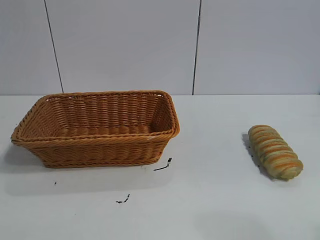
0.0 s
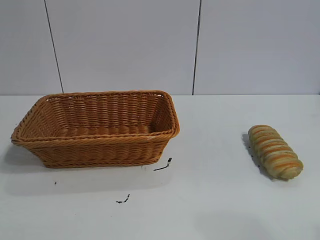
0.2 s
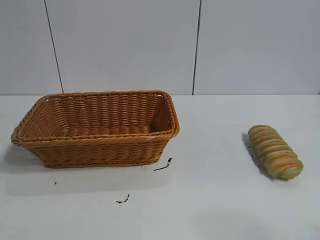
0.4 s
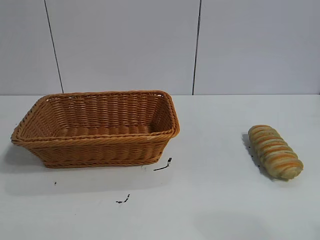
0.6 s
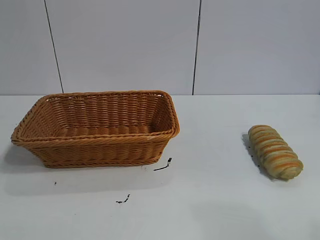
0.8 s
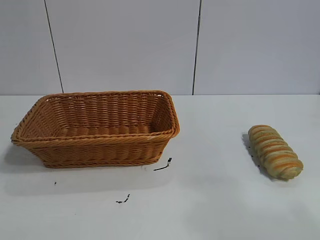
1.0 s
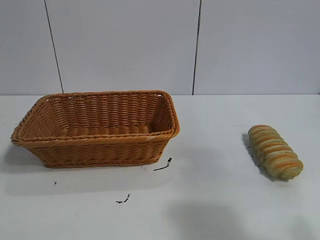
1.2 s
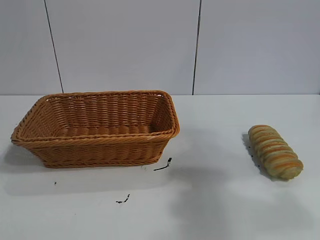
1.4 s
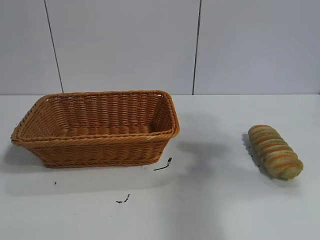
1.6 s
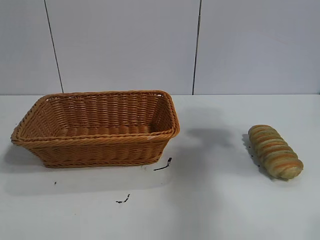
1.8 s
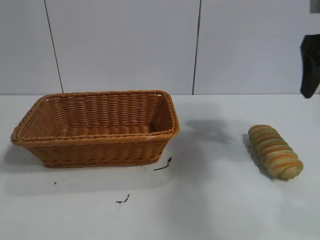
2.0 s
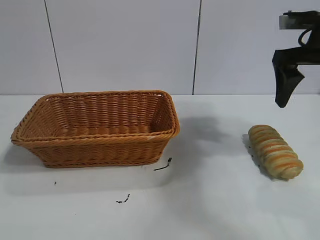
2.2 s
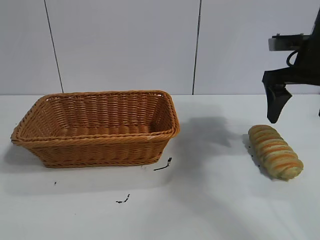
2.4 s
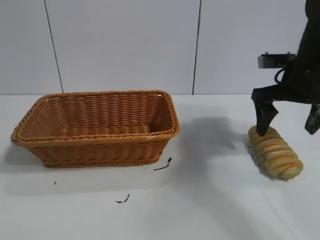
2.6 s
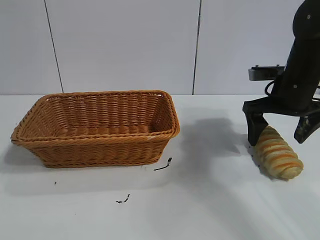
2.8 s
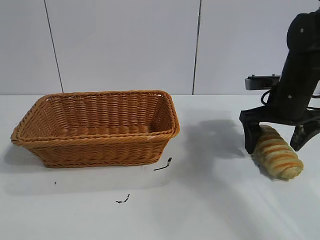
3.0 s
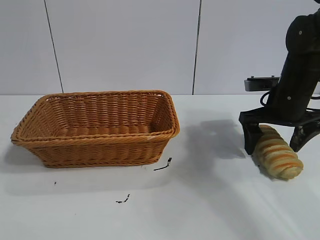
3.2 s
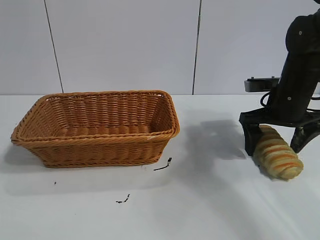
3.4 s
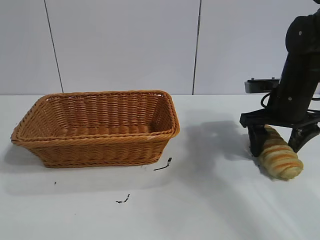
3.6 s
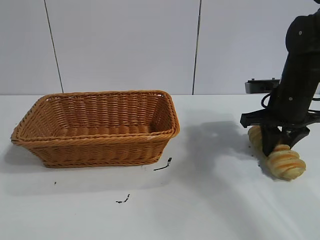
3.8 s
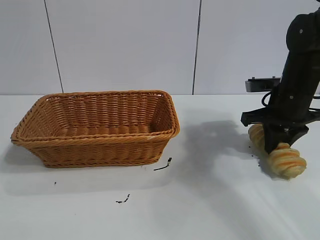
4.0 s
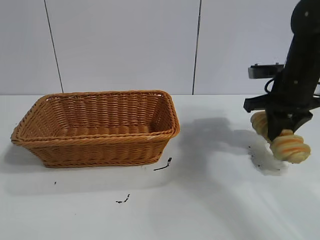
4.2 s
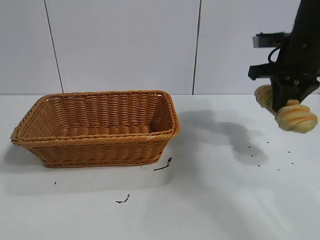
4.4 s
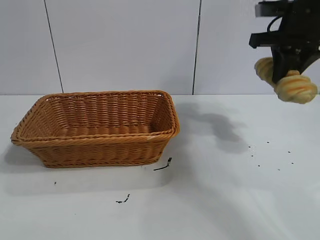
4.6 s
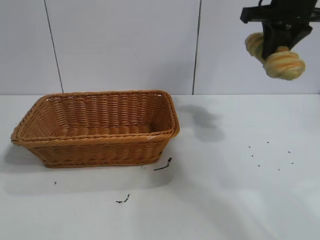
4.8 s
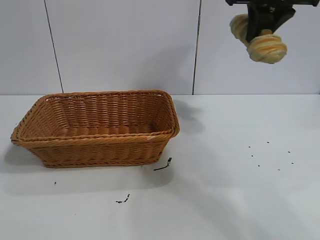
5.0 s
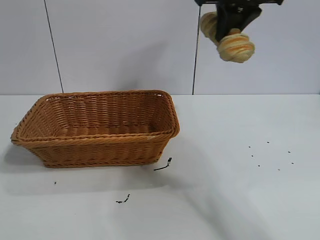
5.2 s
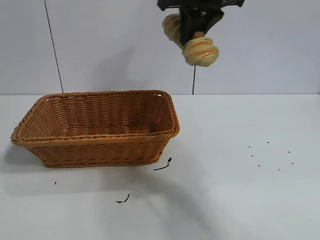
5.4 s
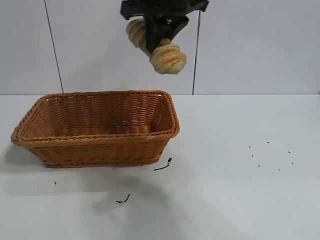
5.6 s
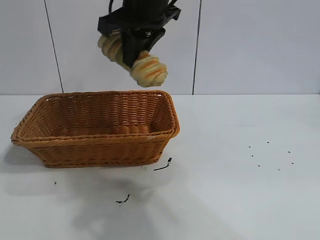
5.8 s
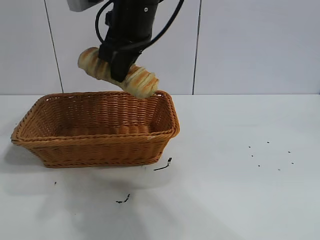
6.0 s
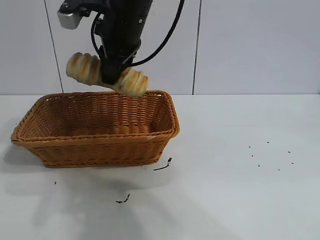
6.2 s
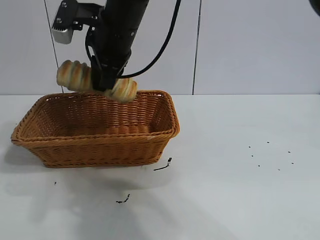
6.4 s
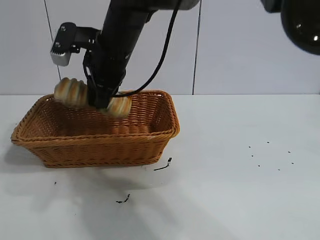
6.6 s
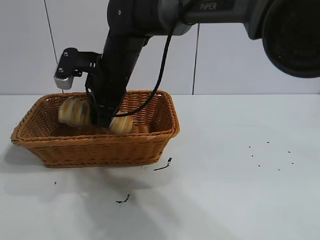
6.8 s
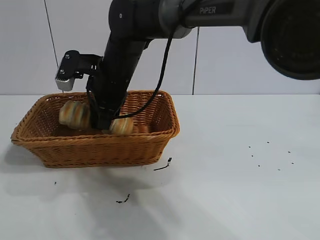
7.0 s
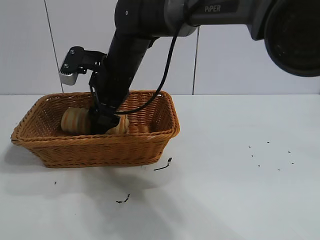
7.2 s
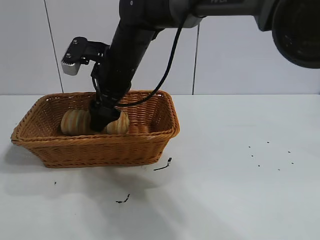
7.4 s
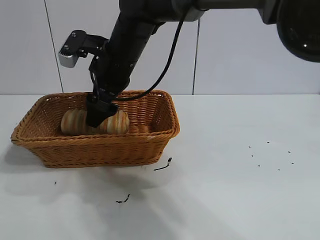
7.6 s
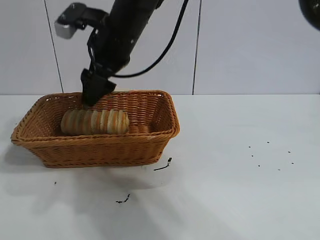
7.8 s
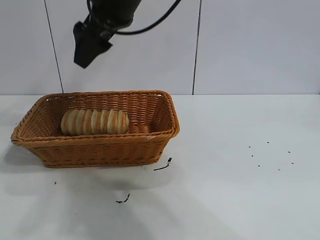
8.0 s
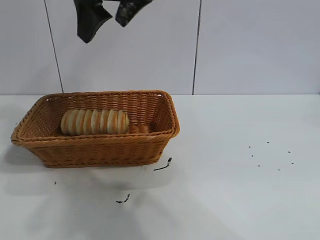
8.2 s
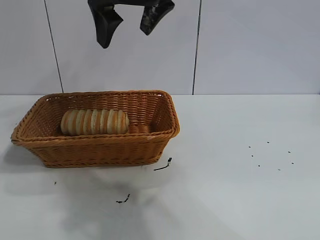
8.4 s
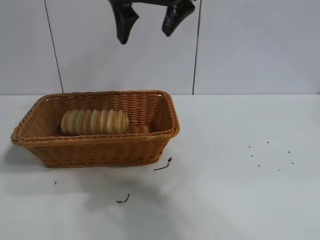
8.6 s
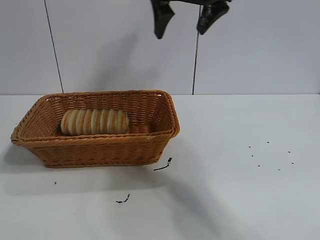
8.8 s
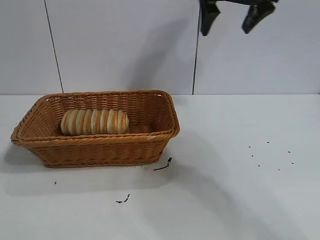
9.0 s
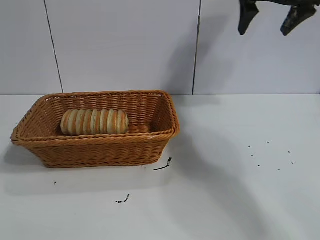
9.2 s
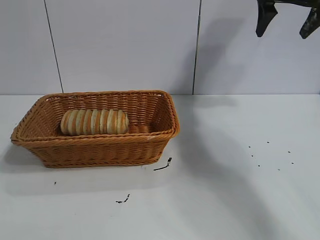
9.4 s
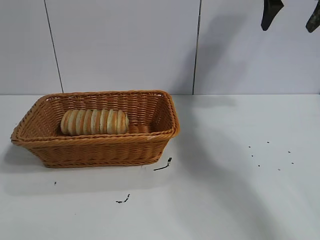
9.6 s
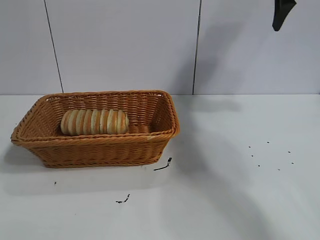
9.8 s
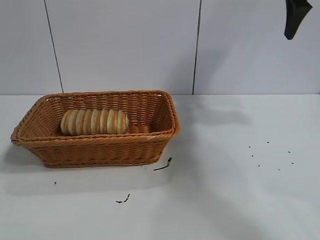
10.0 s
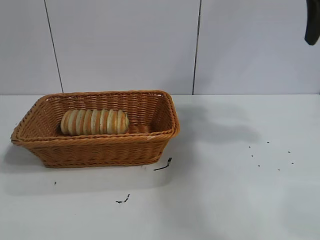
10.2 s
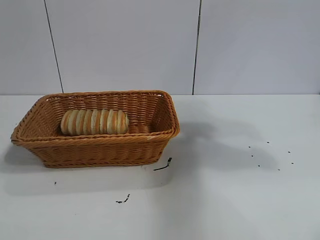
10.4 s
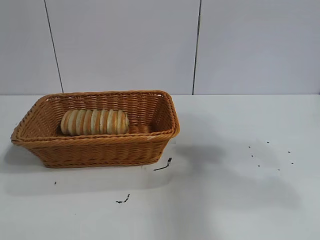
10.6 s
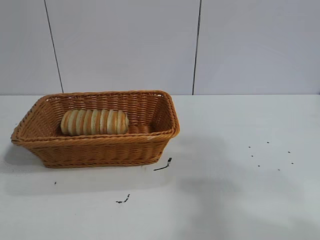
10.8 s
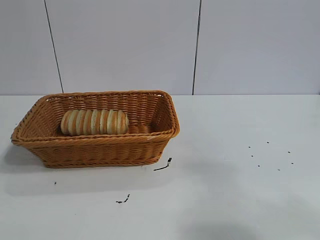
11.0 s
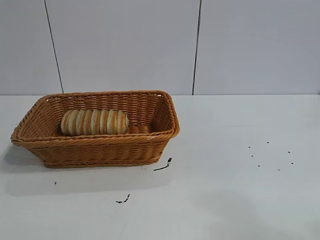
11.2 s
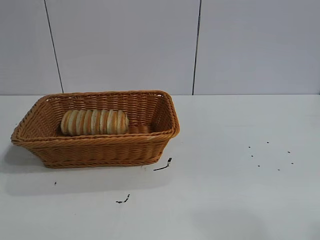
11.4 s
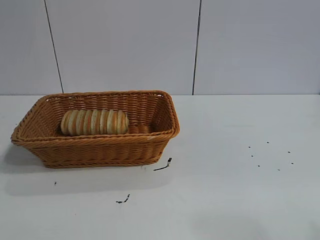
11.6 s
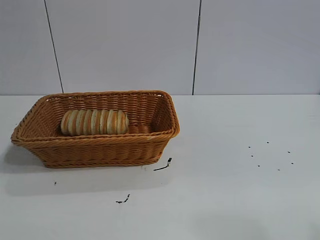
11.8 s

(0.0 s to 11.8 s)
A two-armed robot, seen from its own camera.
Task of the whole recording: pick up the long bread and put it into the basket.
Step, 2.0 s - 4.0 s: Grasp the long bread with right gripper.
Step, 4.2 s - 7.8 s: Place the long bread in the basket with right gripper.

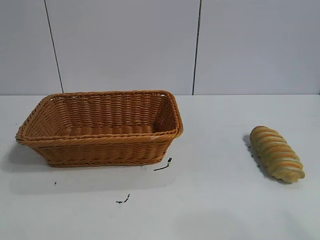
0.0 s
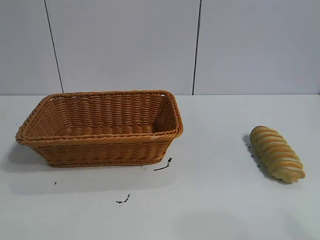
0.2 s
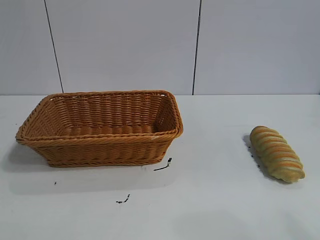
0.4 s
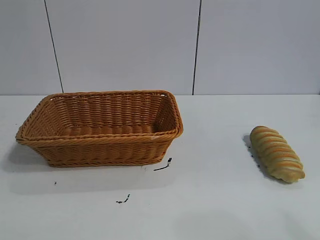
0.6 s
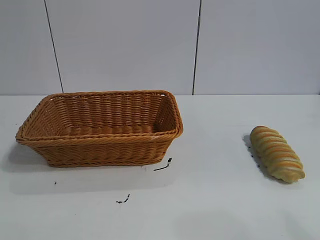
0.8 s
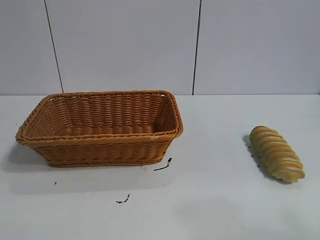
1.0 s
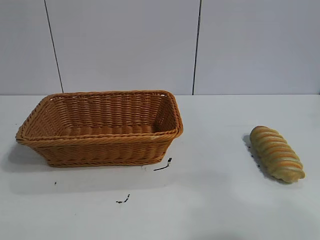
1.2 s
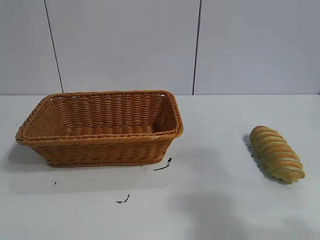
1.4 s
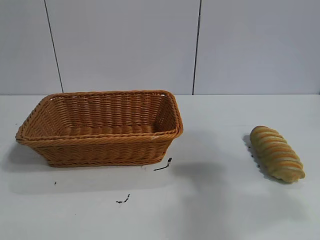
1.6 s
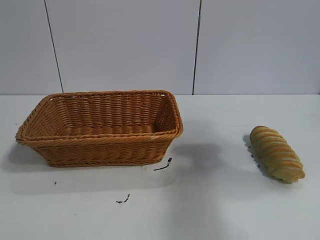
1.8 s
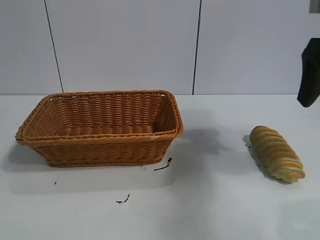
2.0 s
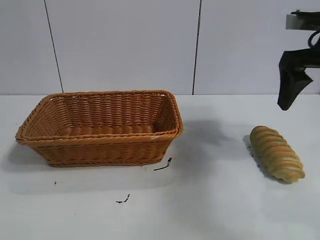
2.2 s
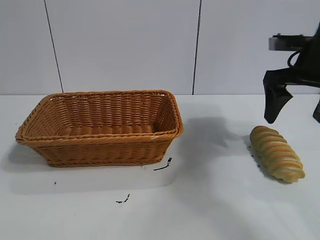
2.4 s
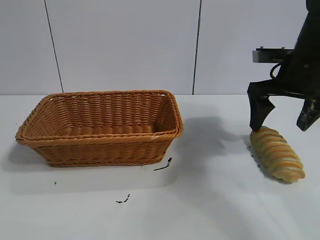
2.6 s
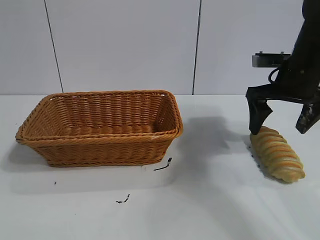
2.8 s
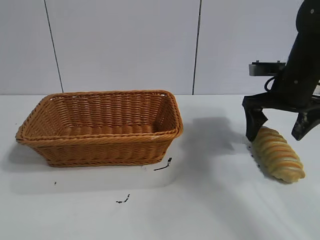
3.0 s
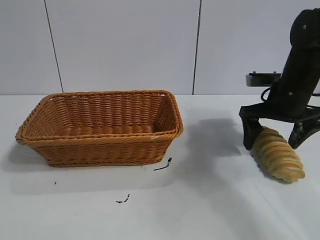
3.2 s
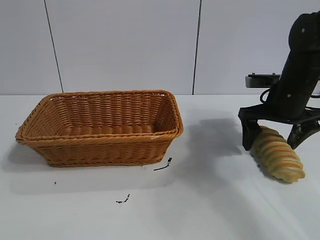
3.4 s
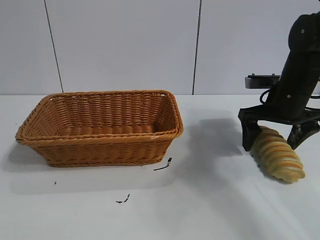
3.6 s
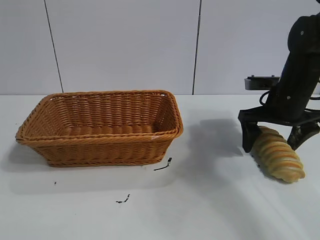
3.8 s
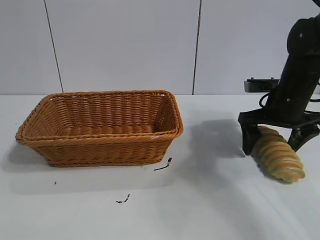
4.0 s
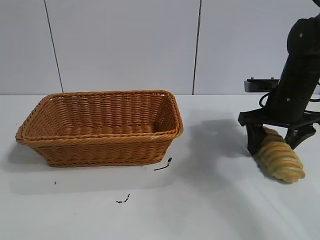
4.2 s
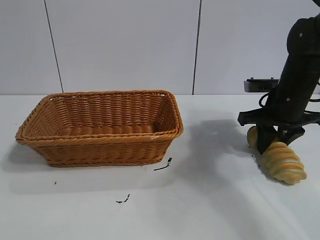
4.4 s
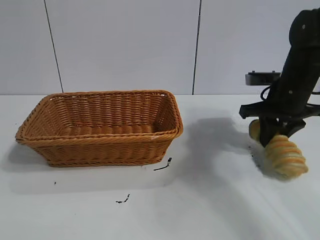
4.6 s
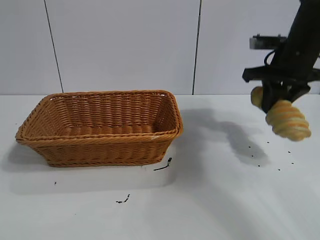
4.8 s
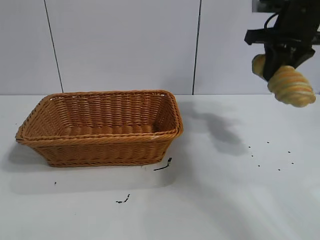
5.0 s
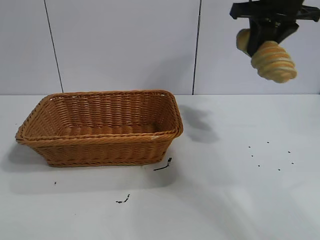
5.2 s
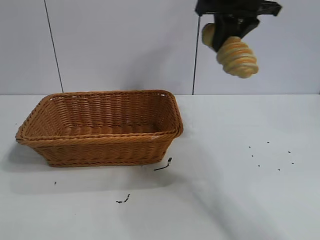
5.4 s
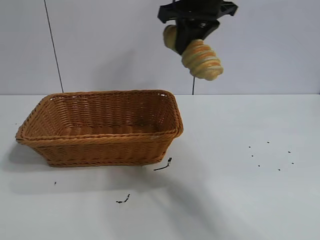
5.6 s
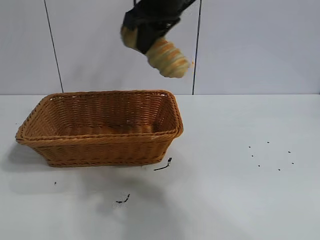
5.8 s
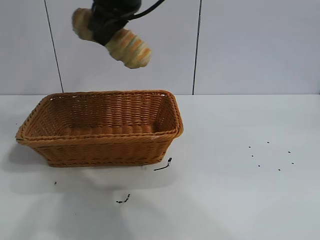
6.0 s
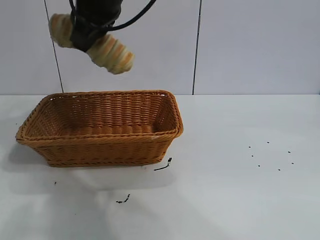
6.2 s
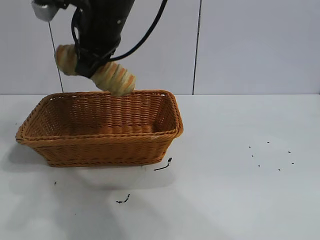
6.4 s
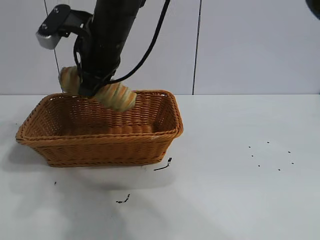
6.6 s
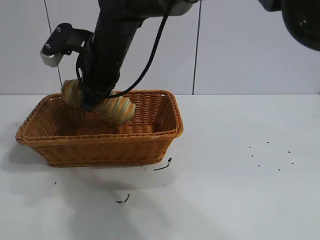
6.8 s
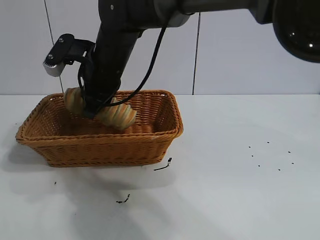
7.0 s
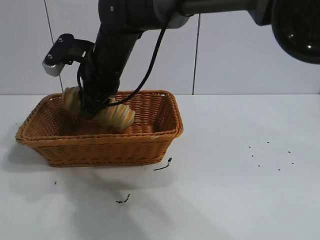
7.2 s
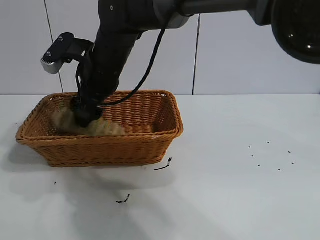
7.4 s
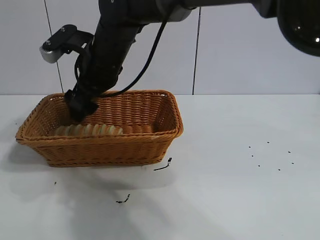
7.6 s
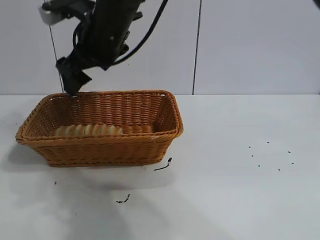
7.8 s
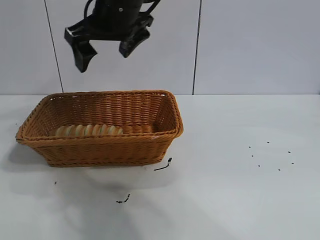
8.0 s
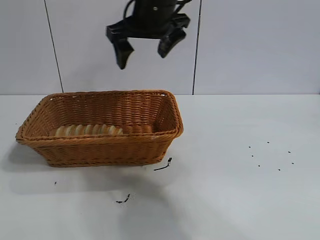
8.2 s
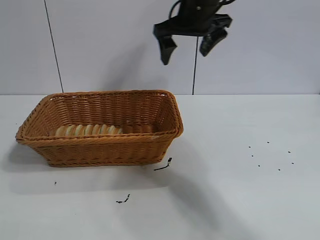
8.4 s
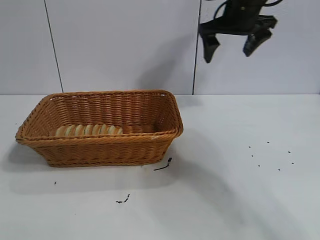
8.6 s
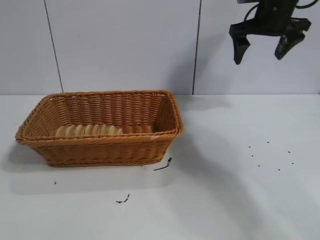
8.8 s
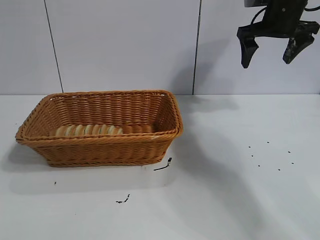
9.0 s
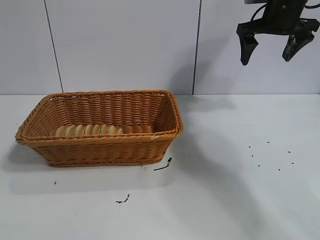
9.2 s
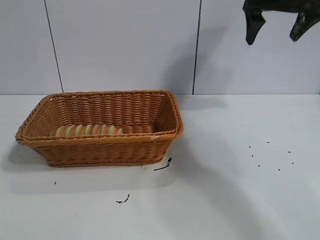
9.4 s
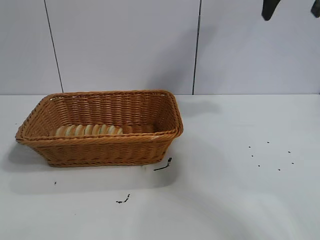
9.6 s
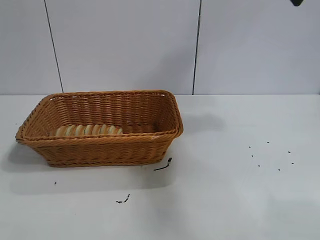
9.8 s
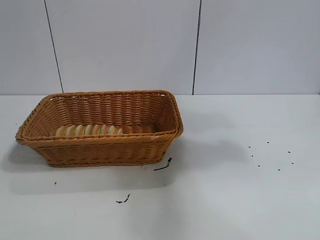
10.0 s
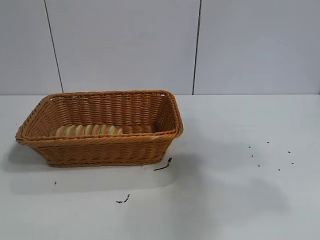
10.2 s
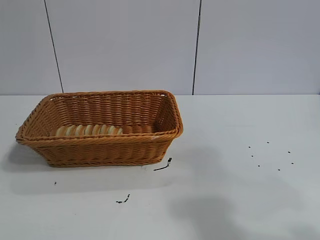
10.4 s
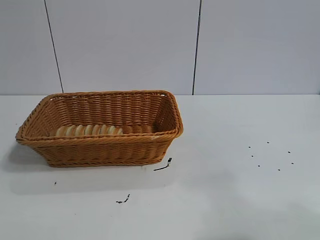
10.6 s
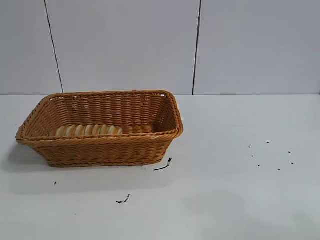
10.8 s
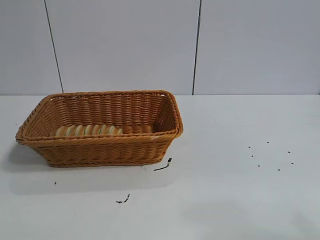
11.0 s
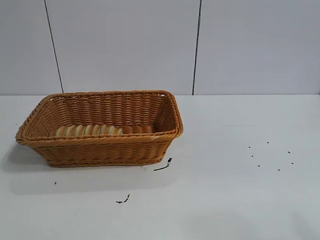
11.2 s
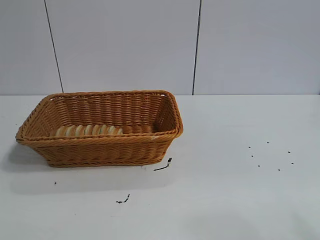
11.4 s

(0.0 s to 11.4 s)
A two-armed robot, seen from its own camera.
Task of the whole recording: pick up the long bread and put it into the basket.
Step, 2.0 s - 4.6 s: Grasp the long bread with right gripper.
Step, 4.8 s - 7.4 s: Place the long bread in the basket with right gripper.
